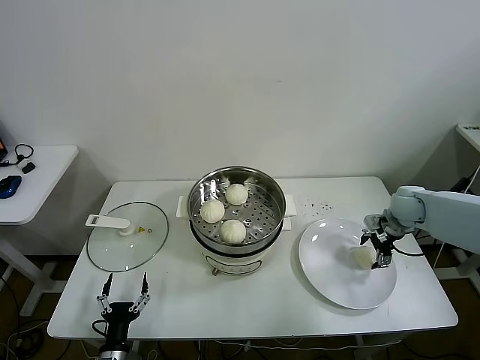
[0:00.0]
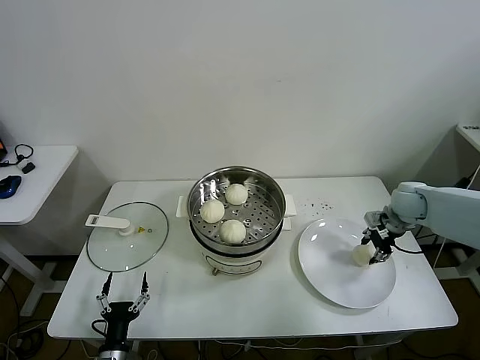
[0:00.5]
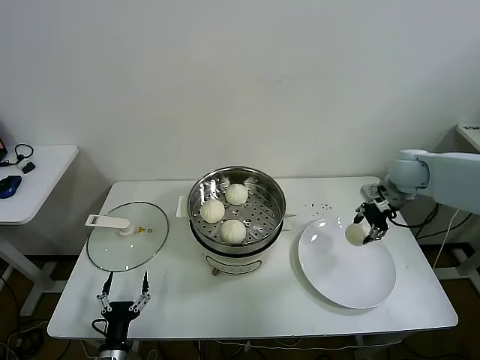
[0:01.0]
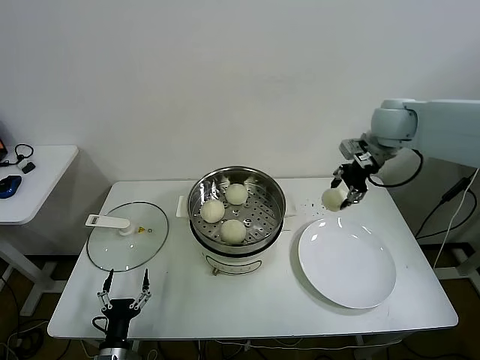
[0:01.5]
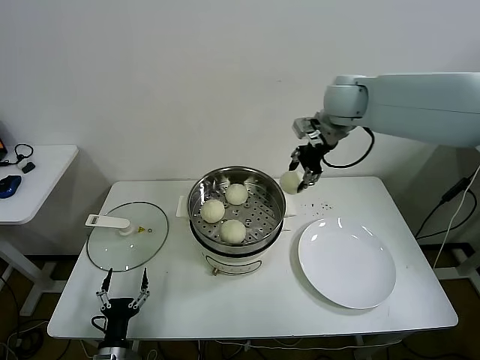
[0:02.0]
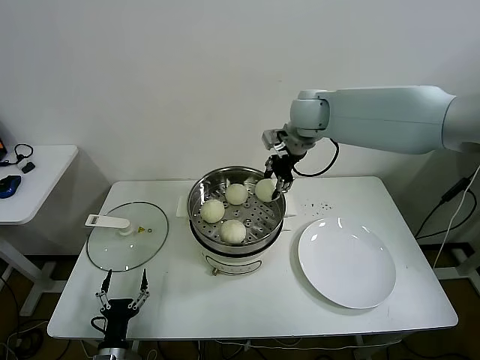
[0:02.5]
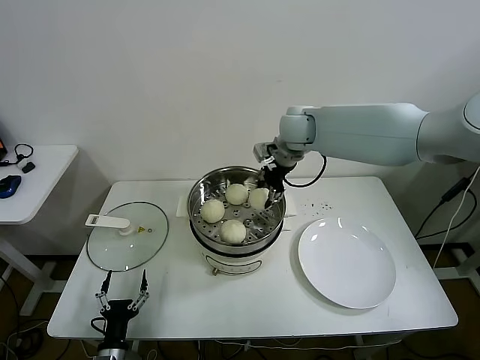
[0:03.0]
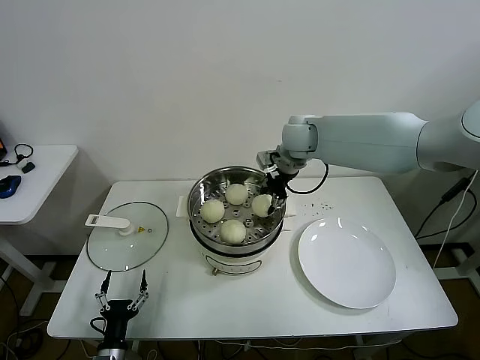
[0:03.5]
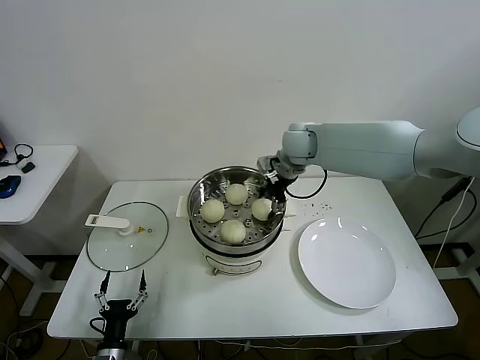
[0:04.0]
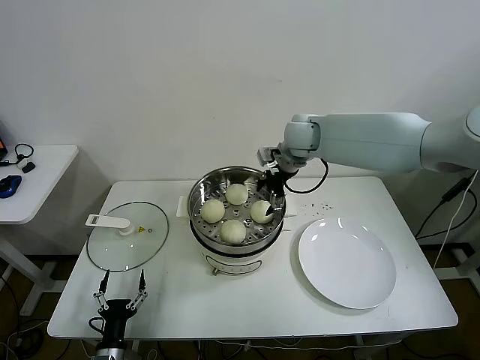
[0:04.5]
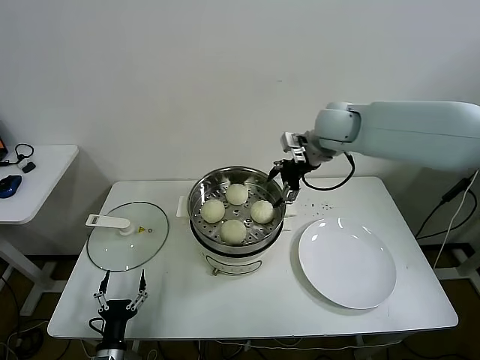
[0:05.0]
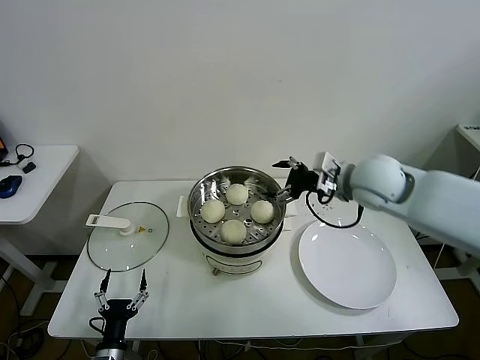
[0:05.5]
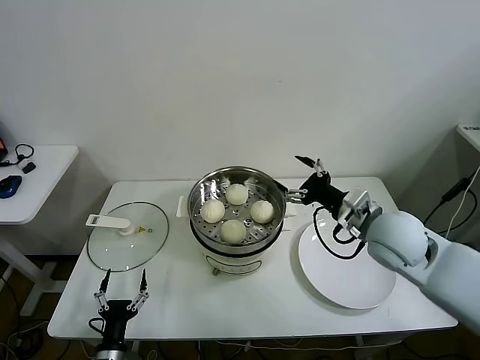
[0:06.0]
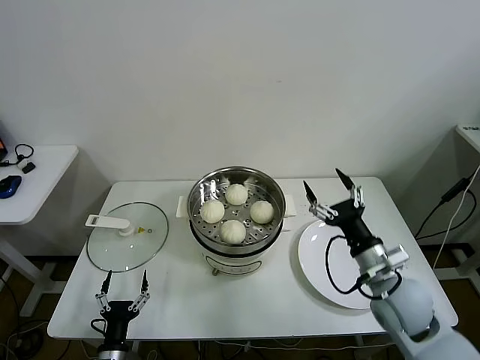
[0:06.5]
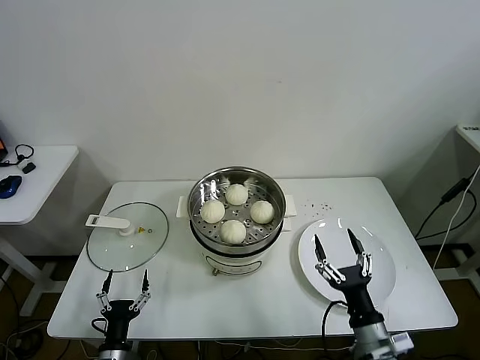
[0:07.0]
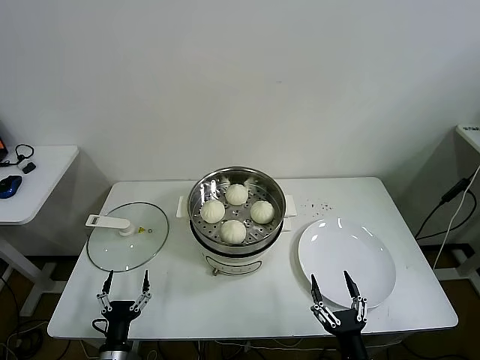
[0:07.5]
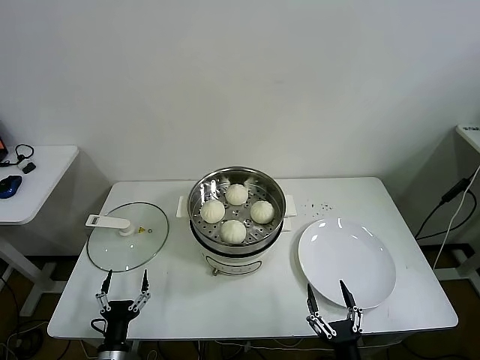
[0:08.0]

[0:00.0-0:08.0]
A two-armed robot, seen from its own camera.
Task of the whole recording: take steamed baozi put them in steamer.
Step, 0:00.5 to 0:04.0: Place the baozi on the steamer with right gripper.
0:00.0 to 0:02.0: The right gripper goes roughly 35 cm upward and to the left, and closes its fingers.
0:02.0 to 0:04.0: The right gripper travels downward and to the left by about 15 cm.
0:04.0 to 0:06.0: The right gripper travels backward and to the right by roughly 25 cm, and opens up.
0:06.0 to 0:08.0: The right gripper shifts some 40 cm backward and downward.

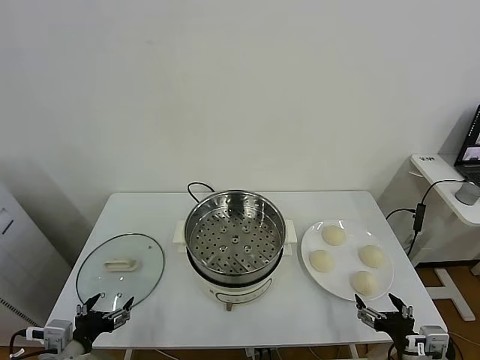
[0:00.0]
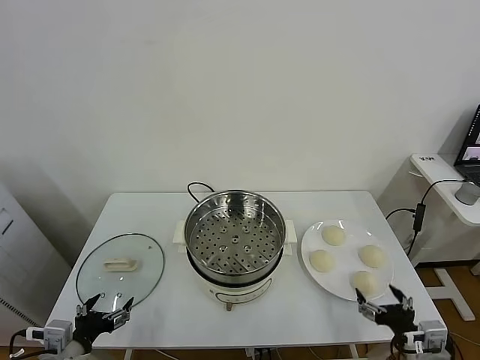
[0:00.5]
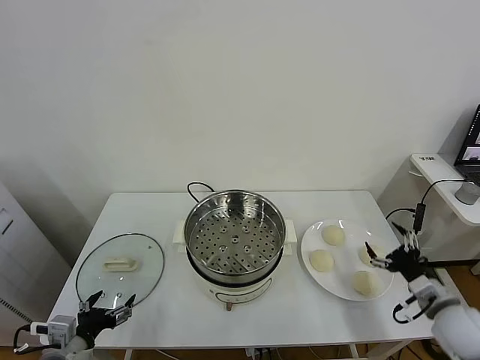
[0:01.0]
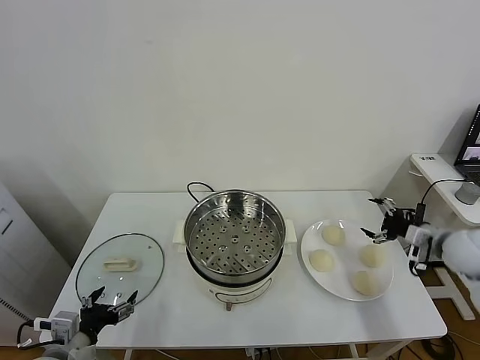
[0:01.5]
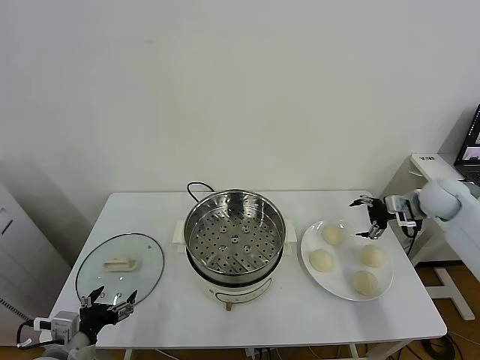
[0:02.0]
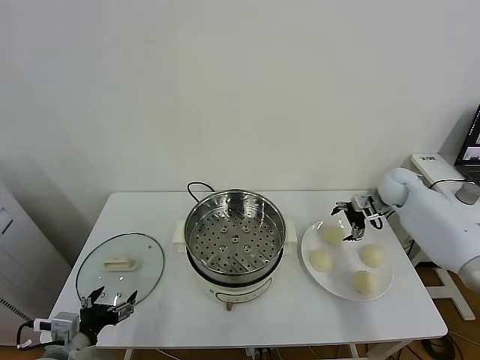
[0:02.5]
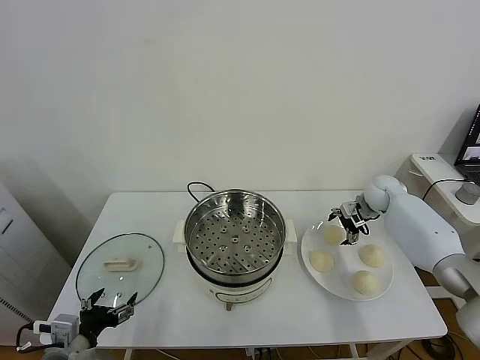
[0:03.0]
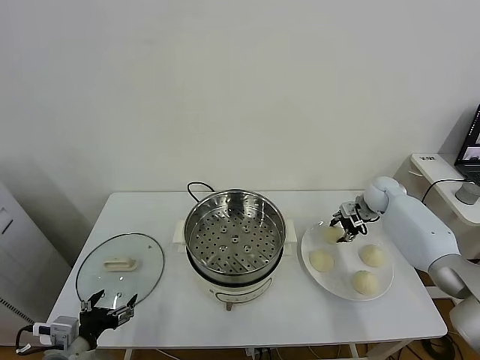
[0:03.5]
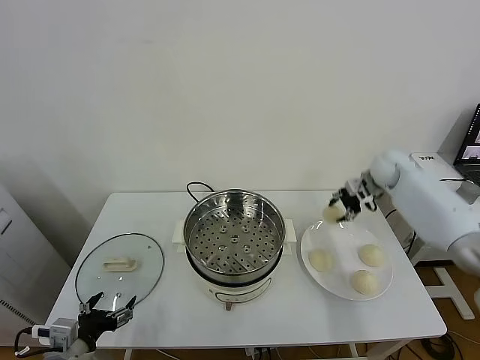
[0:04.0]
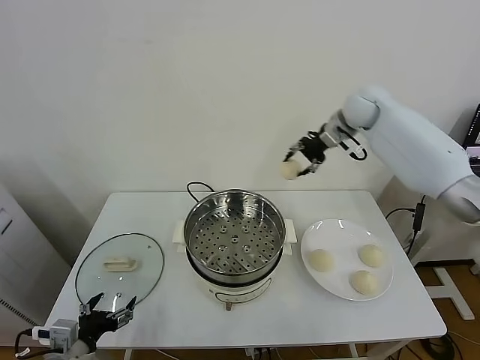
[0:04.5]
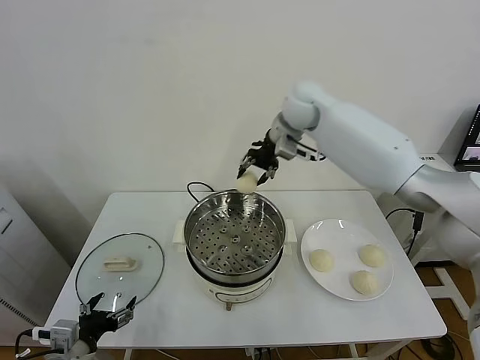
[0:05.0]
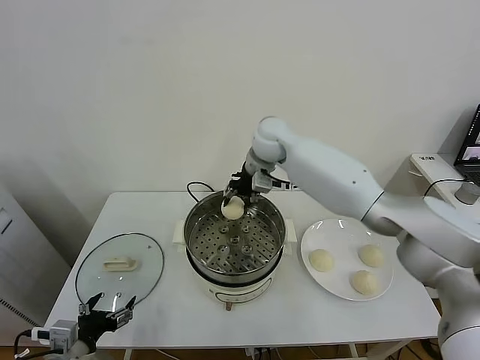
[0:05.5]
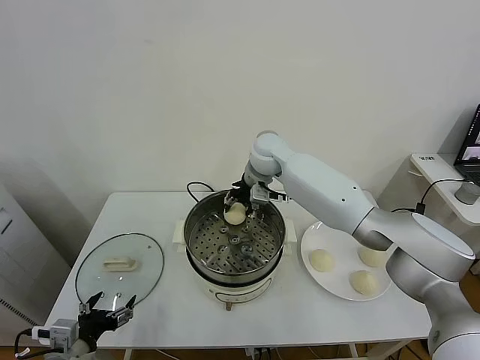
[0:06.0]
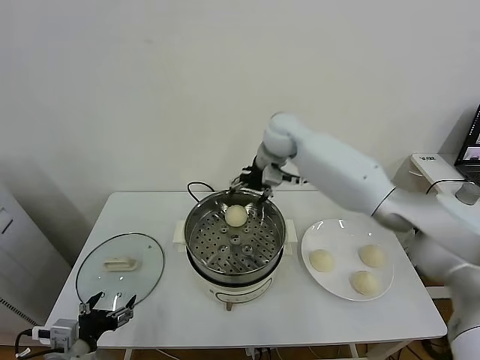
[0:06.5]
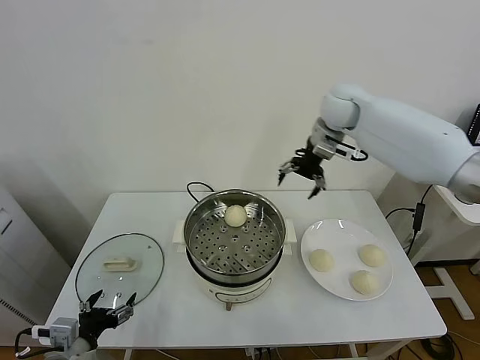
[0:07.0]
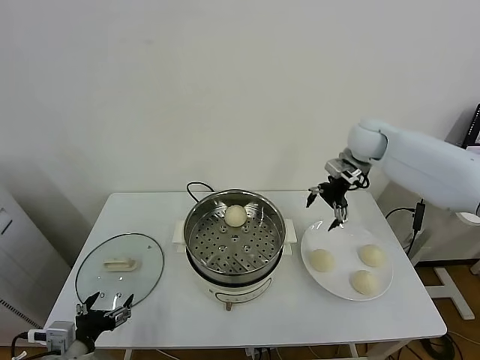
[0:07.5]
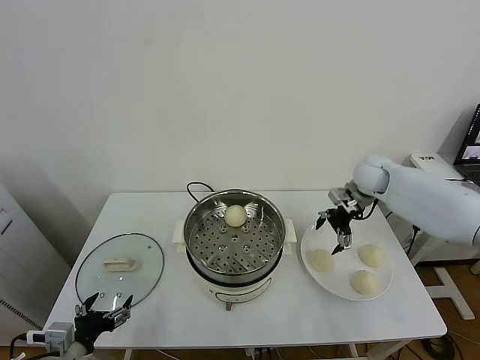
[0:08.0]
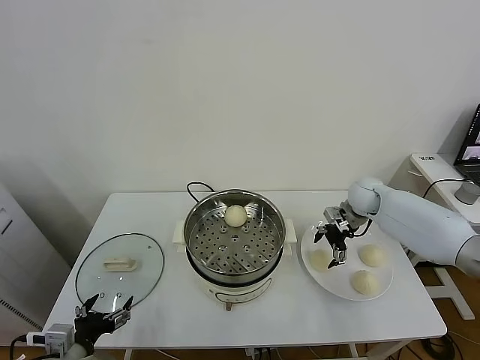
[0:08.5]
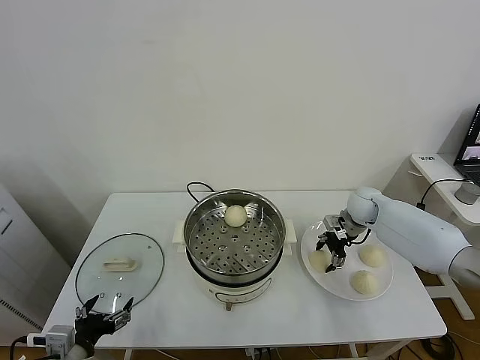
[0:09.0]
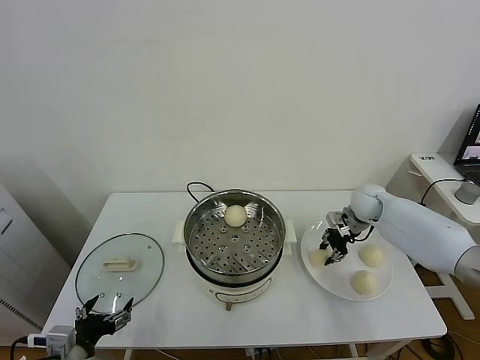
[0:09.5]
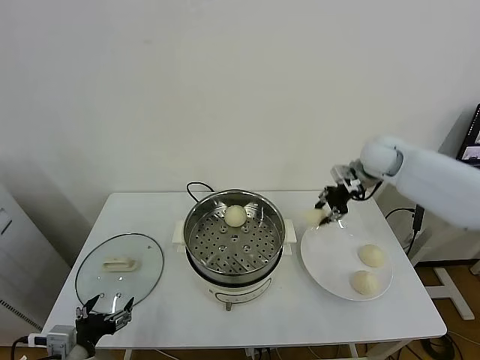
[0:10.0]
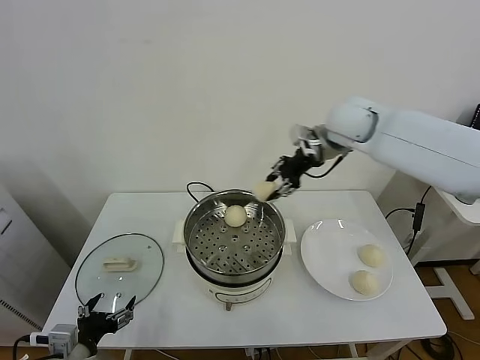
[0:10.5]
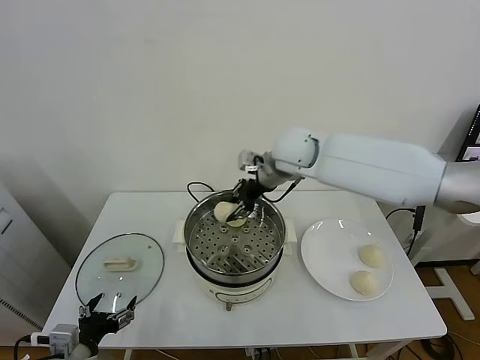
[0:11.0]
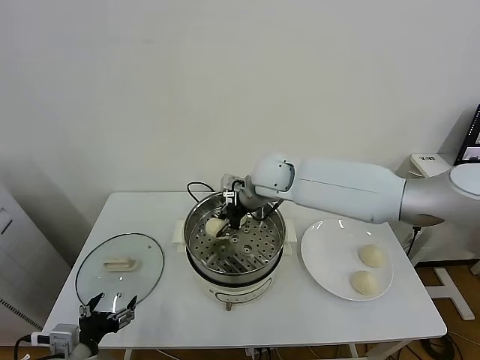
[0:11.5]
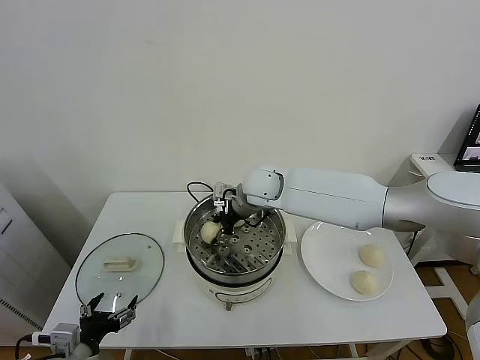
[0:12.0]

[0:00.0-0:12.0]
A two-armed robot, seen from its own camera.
Task of the whole recording: take steamed baozi put them in steamer.
Step, 0:00.0 to 0:03.5: Grasp the baozi in the plate with right gripper.
Step, 0:04.0 to 0:06.0: Place the baozi on the steamer with right gripper.
Step, 0:06.5 to 0:09.0: Grasp the baozi in the plate with right gripper.
0:02.0 to 0:04.0: The right gripper travels forward, to the left and upward by some 15 cm, and closes up.
0:04.0 to 0:06.0: The right gripper is displaced to the left by some 30 cm.
0:06.0 to 0:08.0: The right gripper goes about 25 cm to the right.
0:08.0 to 0:10.0: The right gripper shifts some 10 cm upward, and closes its fingers.
0:10.0 to 0:12.0: The right gripper heads to the left, covering roughly 25 cm, and opens.

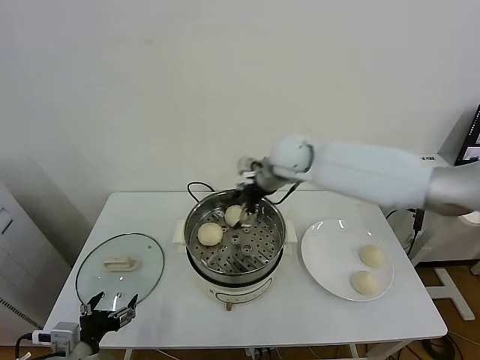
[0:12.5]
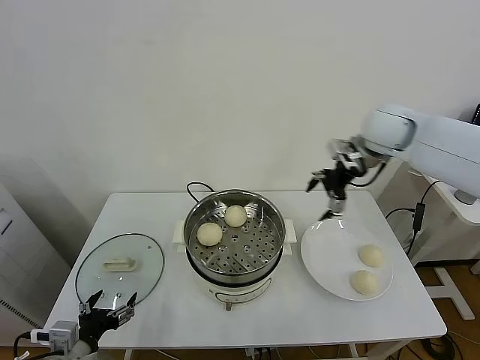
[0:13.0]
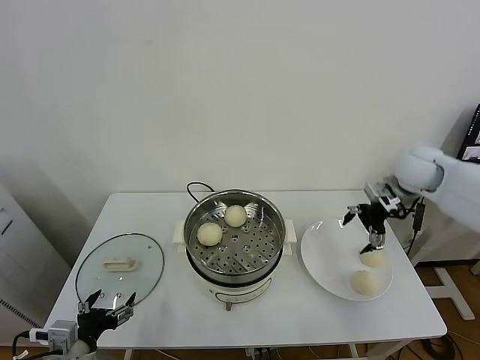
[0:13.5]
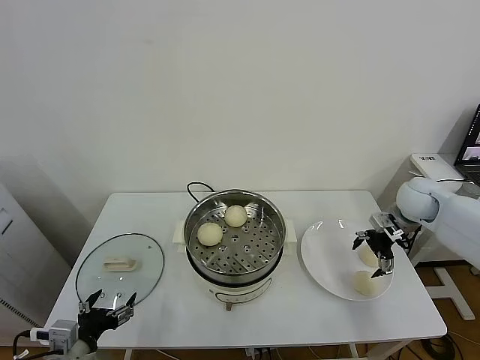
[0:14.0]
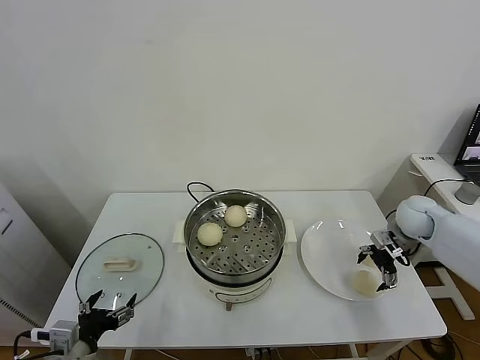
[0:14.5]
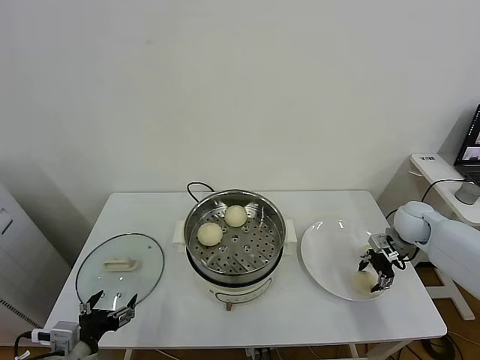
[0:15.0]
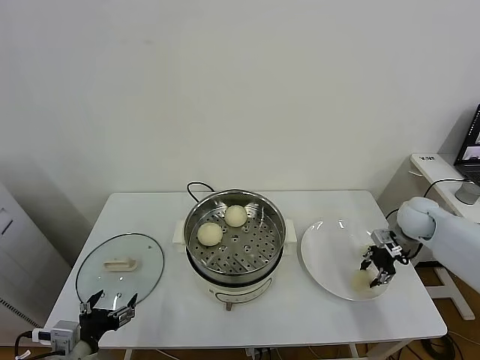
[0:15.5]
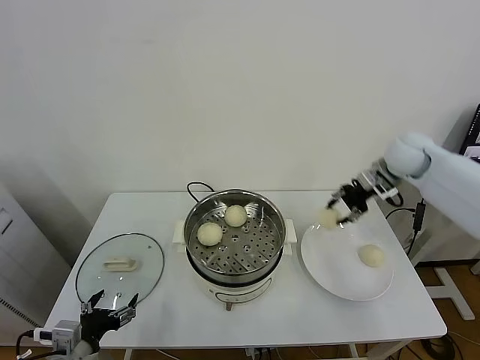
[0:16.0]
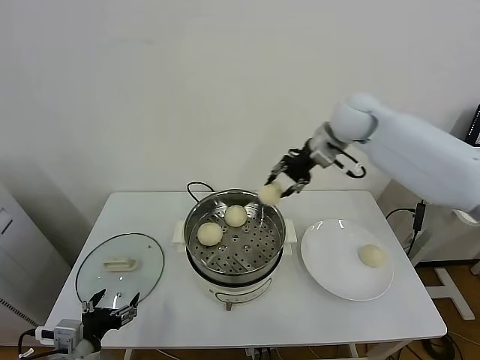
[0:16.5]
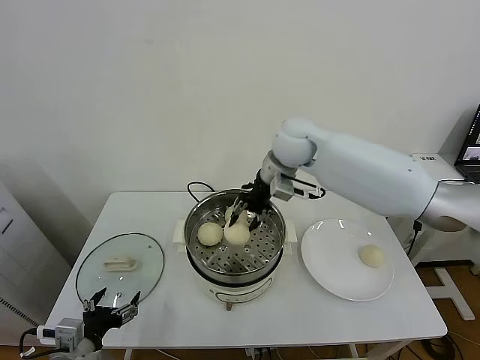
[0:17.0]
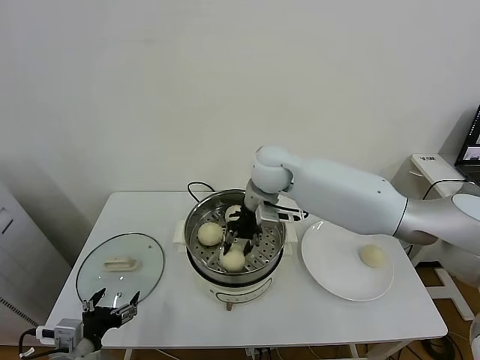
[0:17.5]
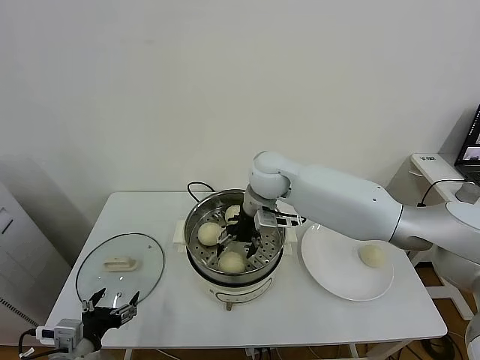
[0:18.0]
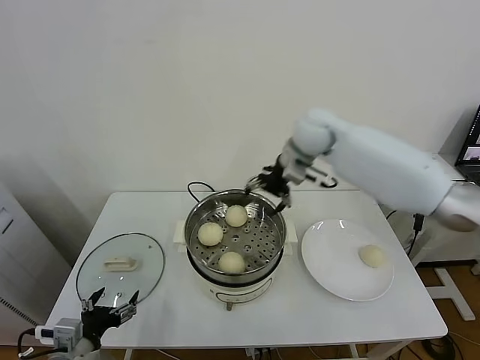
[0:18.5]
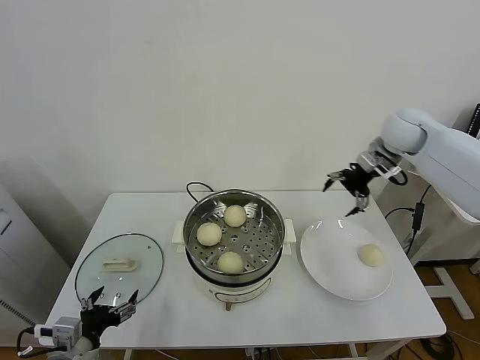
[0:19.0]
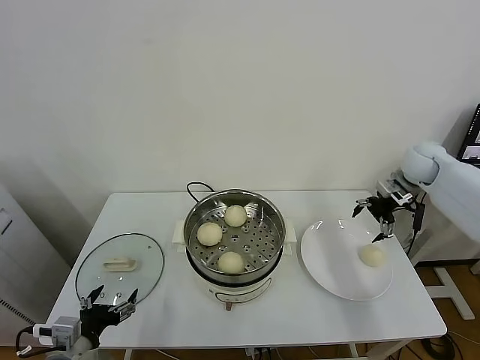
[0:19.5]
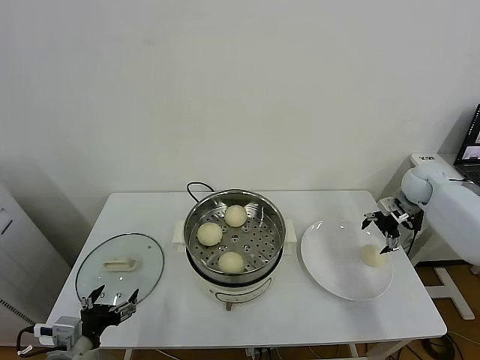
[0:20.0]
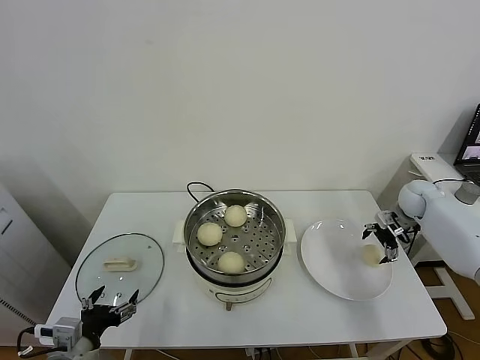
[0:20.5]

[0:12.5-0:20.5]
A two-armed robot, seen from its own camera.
Task of the whole recording: take steamed baozi put them in steamer.
Step, 0:12.5 to 0:15.0: Grasp the baozi in the plate with right gripper.
Step, 0:15.5 to 0:18.0: Place the baozi on the steamer with right gripper.
0:12.5 to 0:14.5: The right gripper moves to the right and downward, approximately 35 cm.
0:14.5 to 0:16.5: The right gripper travels upward and to the left by approximately 30 cm, and closes.
0:16.5 to 0:18.5: The right gripper goes to the left and returns, about 15 cm each way, and opens.
0:18.5 to 0:20.5: The right gripper is displaced to the right and downward by roughly 35 cm.
